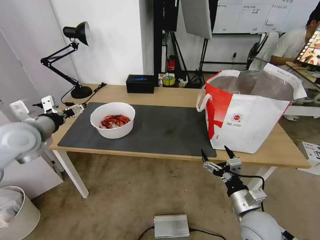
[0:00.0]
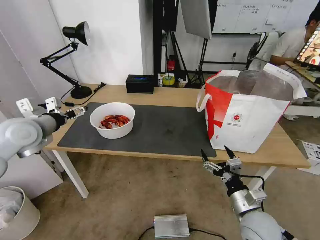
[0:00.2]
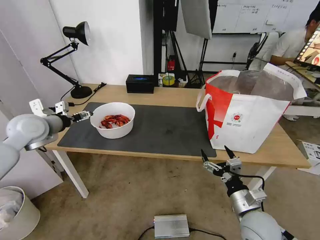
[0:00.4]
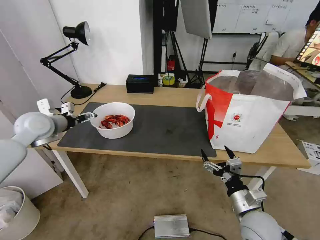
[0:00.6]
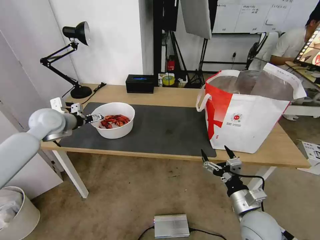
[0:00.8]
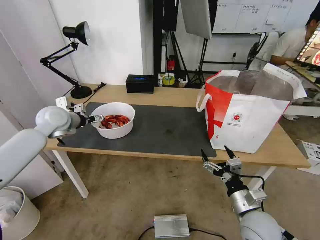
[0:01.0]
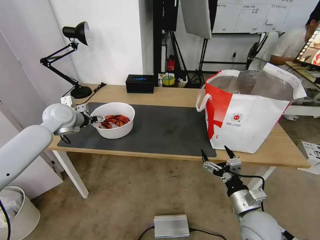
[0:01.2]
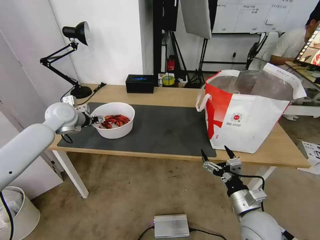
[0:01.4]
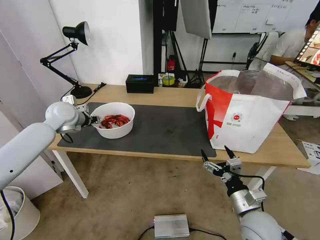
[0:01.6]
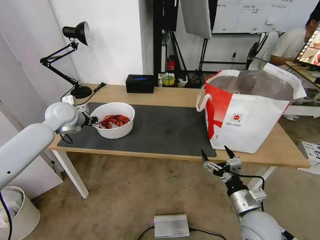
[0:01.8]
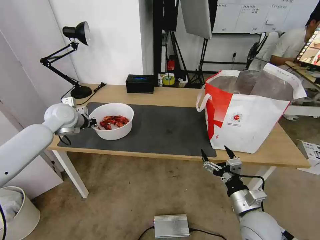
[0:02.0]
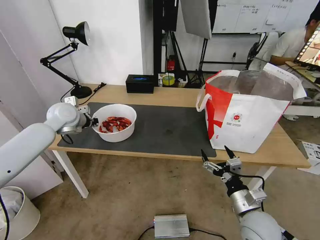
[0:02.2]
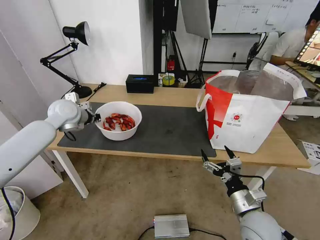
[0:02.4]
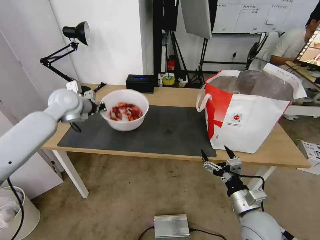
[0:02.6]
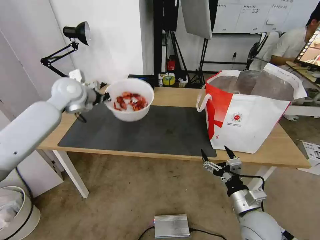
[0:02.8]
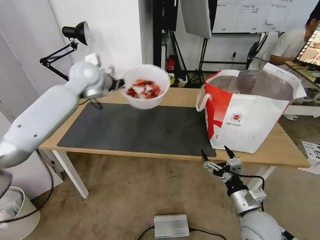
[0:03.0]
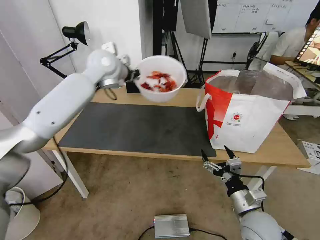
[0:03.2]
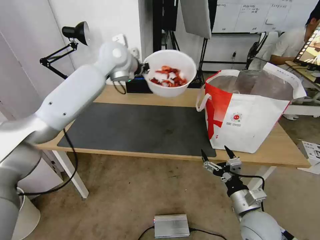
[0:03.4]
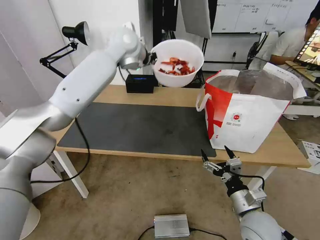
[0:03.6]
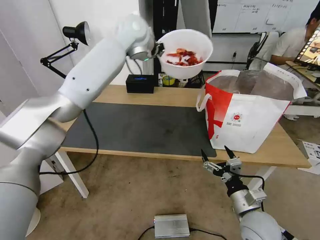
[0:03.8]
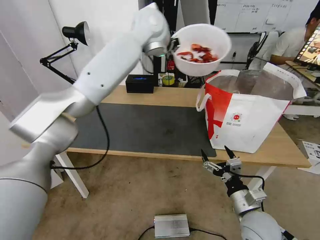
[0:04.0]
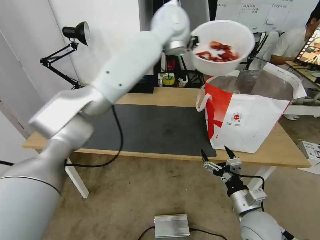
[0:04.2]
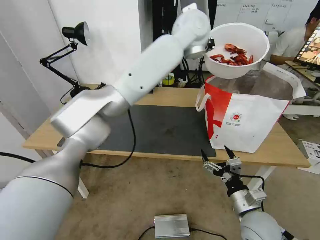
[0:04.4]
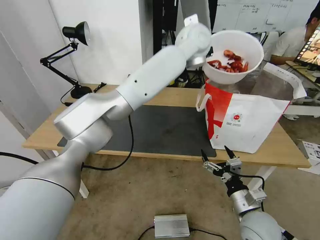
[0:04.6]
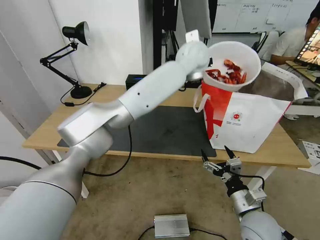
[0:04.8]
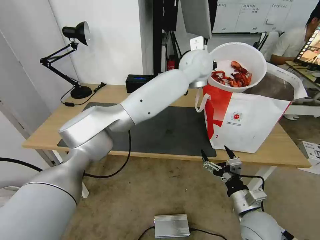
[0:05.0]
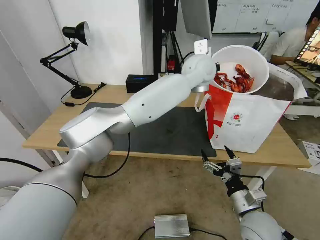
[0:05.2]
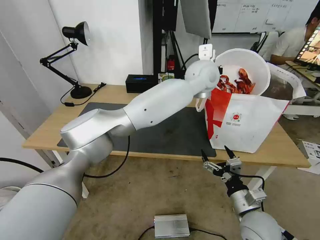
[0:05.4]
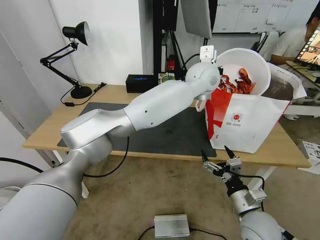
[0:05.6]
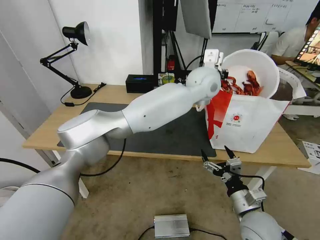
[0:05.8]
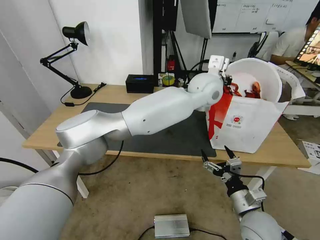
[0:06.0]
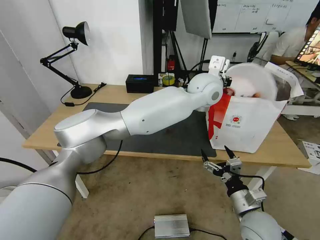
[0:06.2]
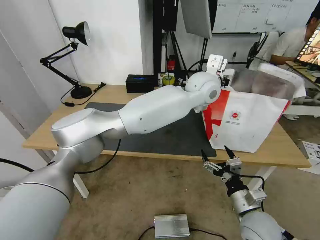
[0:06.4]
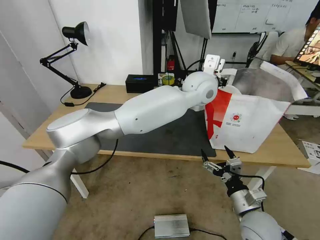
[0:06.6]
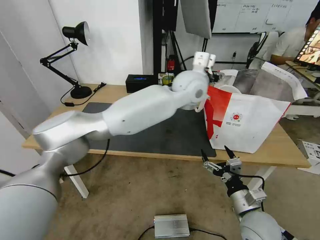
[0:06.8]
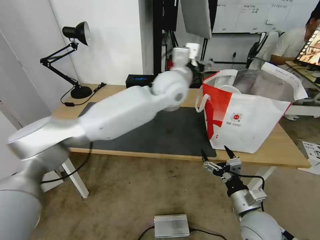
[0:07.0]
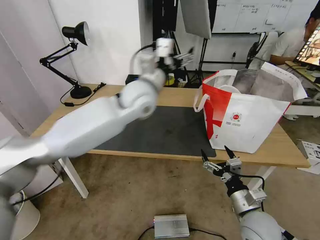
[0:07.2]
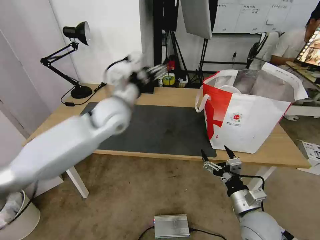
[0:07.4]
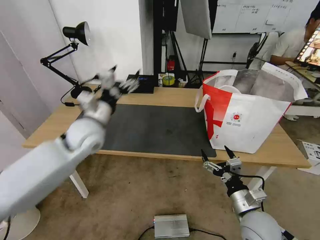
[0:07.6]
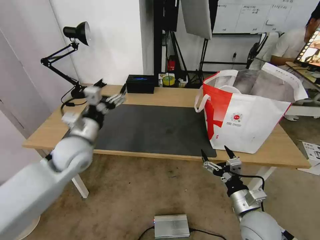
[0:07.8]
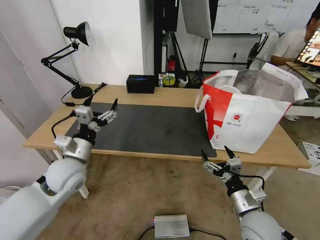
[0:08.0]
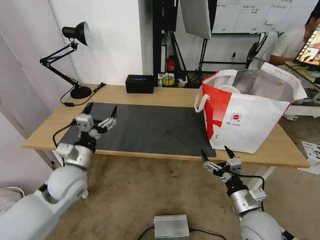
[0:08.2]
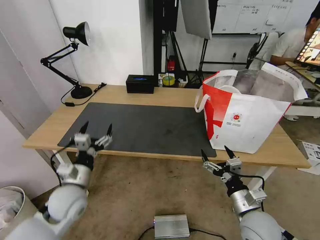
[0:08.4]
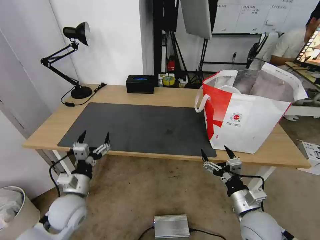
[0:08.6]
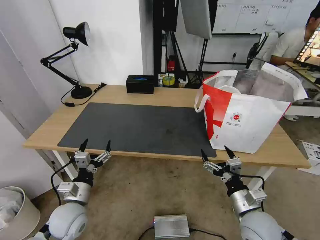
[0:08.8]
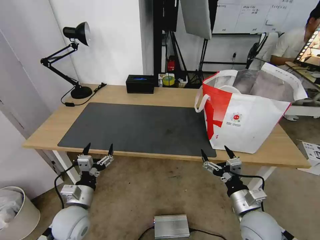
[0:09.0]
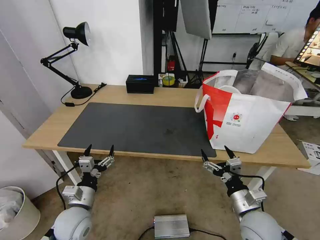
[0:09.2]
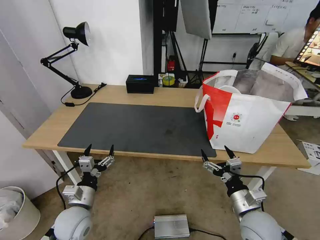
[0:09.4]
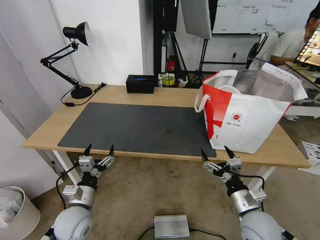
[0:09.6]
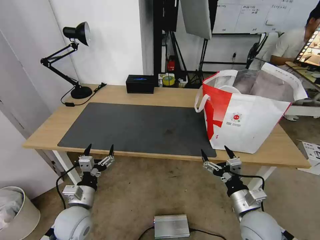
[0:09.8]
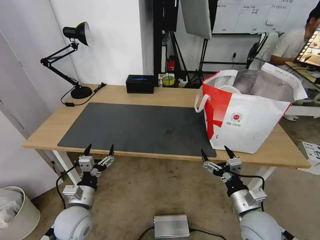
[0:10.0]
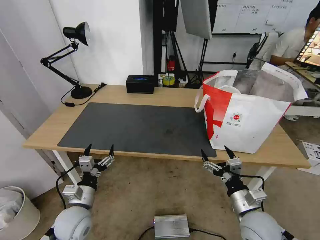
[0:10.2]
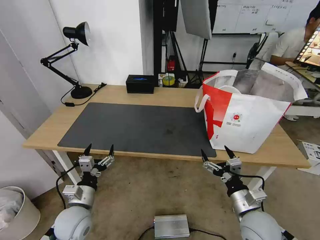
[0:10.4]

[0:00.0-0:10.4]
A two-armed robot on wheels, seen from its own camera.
Task of the whole recording: Pick up the trash from the table and place it into the takeout bag.
0:00.0 to 0:01.4: The left gripper is displaced forward by about 15 cm.
0:01.4 to 0:03.0: The left gripper heads upward and to the right, covering some 15 cm, and closes its fingers.
0:03.0 to 0:04.4: The left gripper goes some 30 cm to the right.
0:04.4 to 0:06.0: The left gripper moves downward, backward and to the right, about 15 cm.
0:06.0 to 0:07.4: The left gripper moves to the left, some 25 cm, and opens up.
0:07.4 to 0:09.0: The left gripper moves downward, backward and to the left, approximately 35 cm.
0:09.0 to 0:10.4: Both grippers stay about where they are.

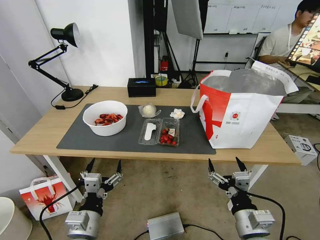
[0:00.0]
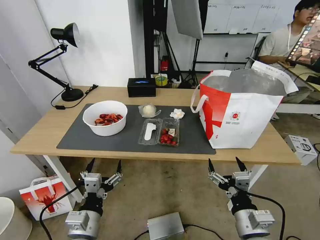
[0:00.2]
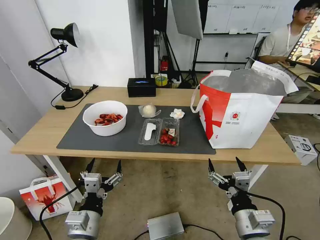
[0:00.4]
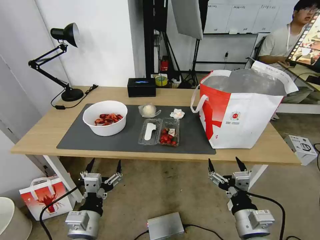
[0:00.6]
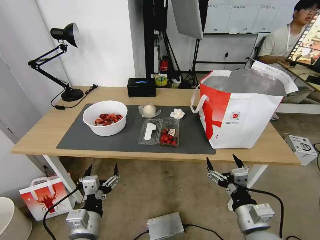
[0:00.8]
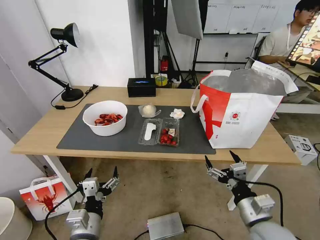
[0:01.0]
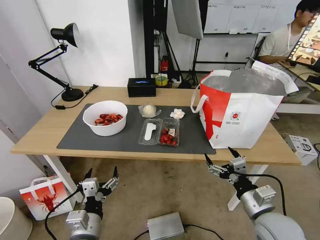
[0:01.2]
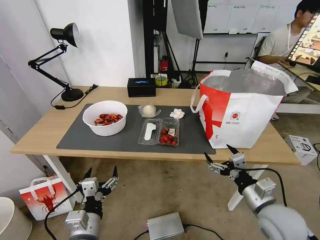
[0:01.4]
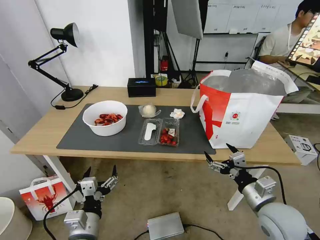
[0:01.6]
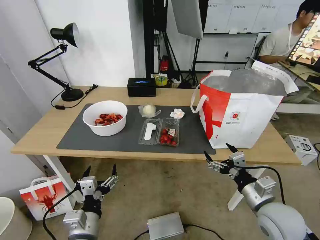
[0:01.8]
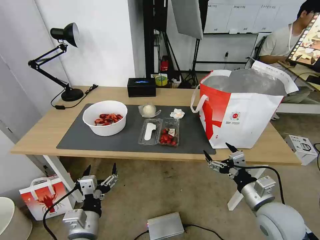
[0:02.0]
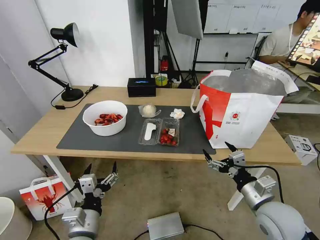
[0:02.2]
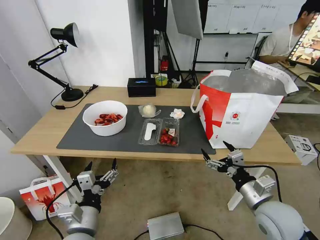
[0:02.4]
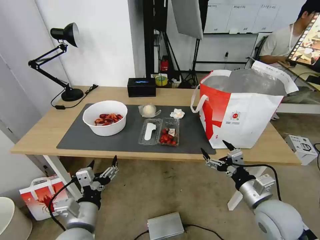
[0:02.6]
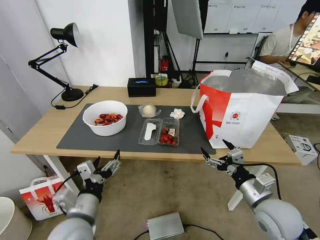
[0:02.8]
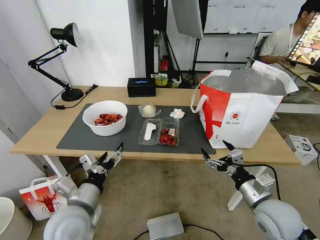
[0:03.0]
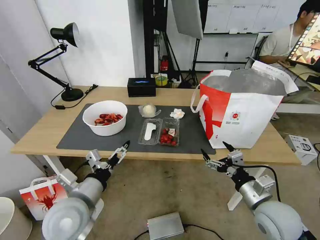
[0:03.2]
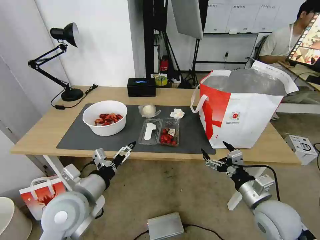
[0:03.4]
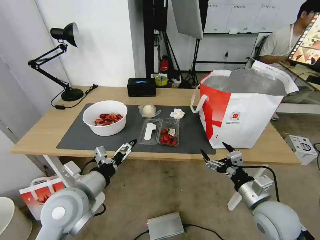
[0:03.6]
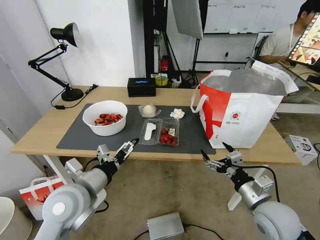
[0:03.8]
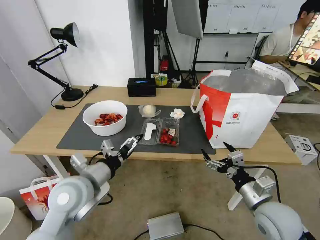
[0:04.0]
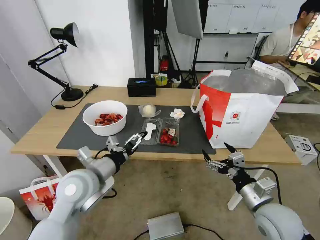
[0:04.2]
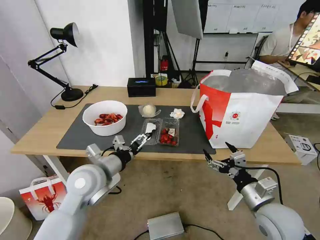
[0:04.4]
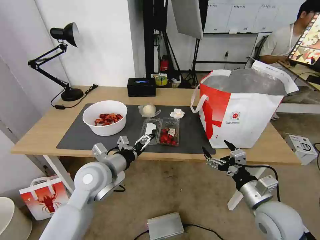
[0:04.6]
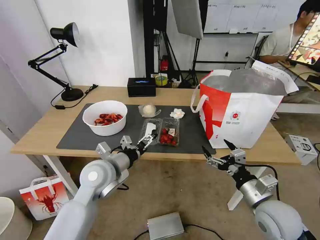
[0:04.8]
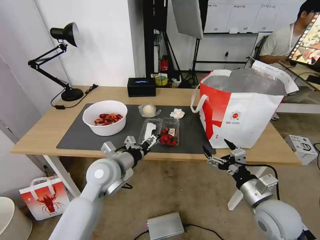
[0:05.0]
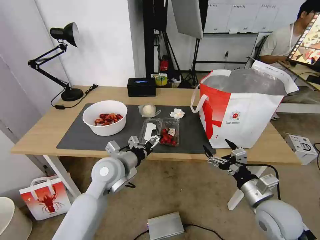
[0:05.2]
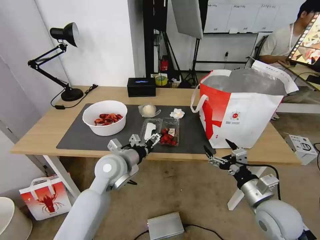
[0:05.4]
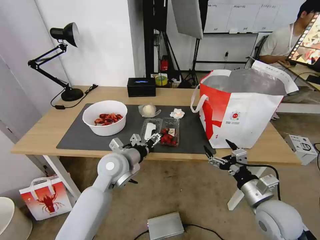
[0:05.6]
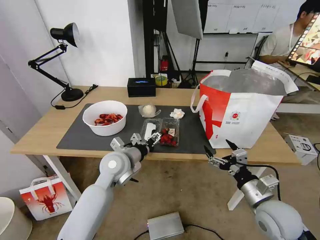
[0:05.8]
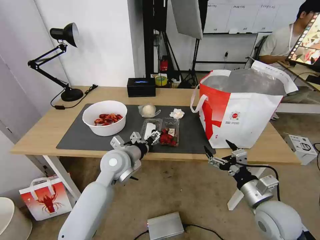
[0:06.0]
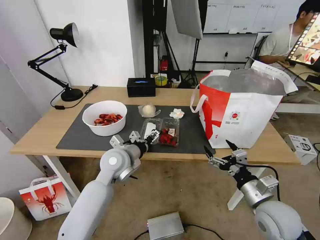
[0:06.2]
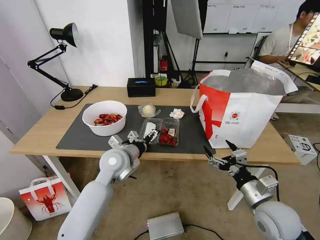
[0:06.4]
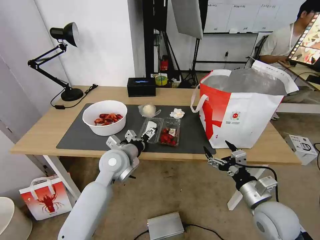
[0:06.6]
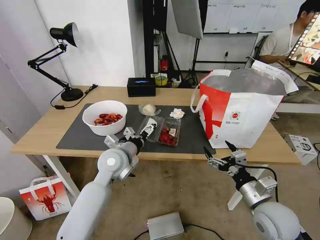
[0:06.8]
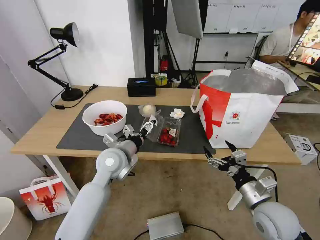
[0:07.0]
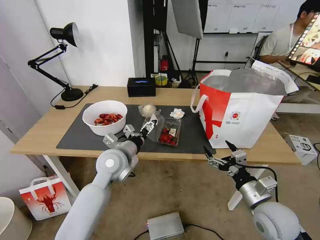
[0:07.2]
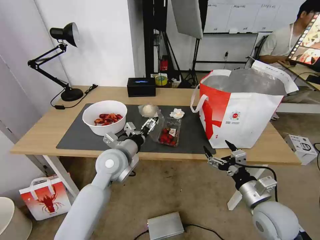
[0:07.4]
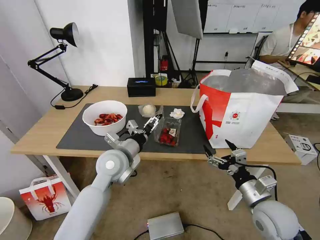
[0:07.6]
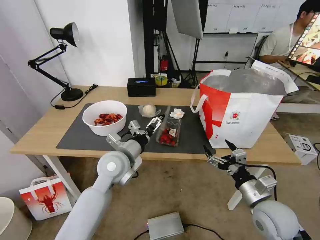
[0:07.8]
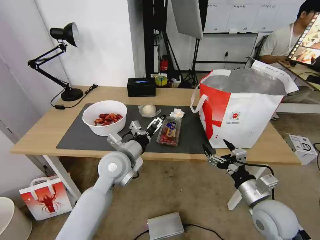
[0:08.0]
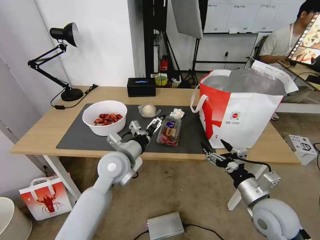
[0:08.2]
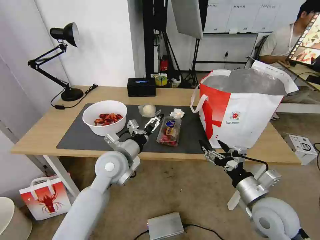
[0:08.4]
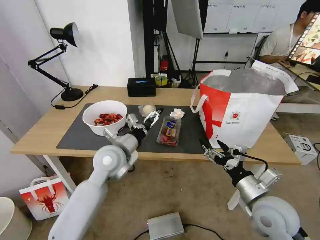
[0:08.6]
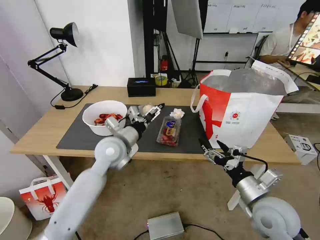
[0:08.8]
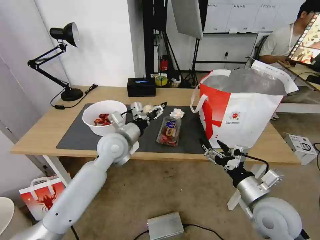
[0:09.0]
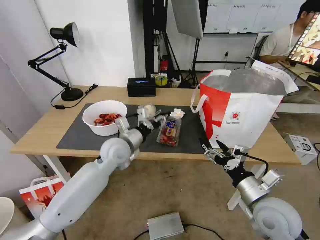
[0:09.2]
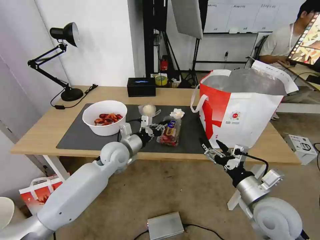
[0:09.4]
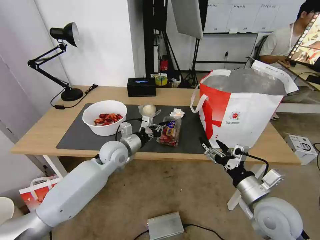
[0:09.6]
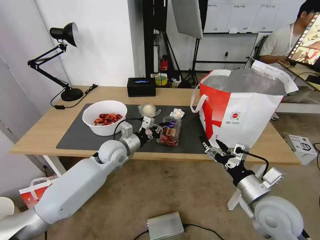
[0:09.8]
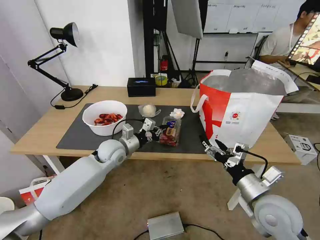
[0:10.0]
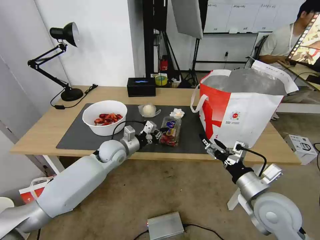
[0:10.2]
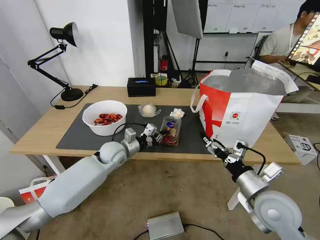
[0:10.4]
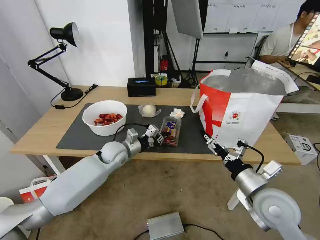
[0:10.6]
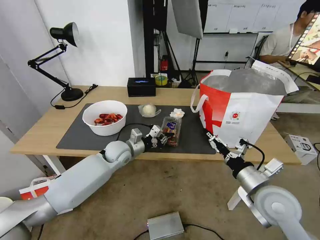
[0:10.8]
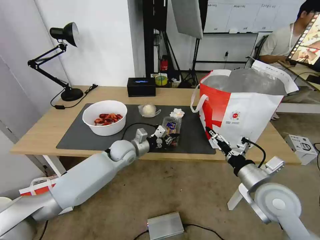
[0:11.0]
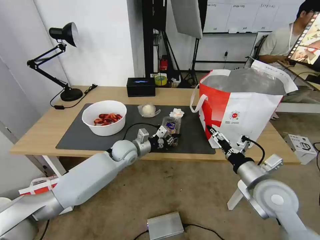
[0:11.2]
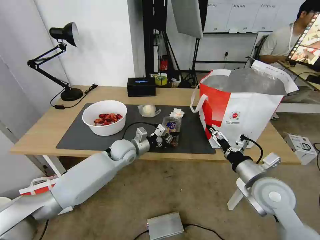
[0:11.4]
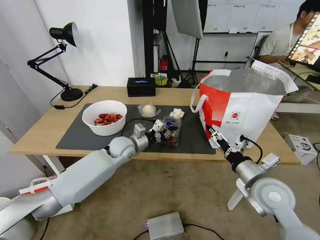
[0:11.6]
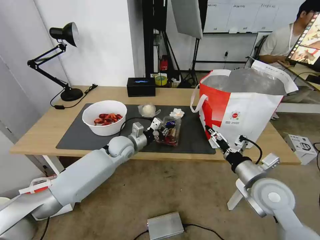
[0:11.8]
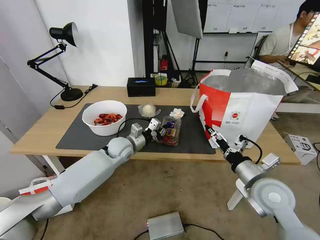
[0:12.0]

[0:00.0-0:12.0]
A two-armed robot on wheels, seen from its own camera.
Task of the whole recording: Pick up the trash from the table and place it into the takeout bag.
0:01.6 to 0:03.0: The left gripper travels upward and forward by about 10 cm.
0:03.0 to 0:04.4: The left gripper goes some 10 cm forward.
0:04.4 to 0:06.0: The left gripper is displaced forward and to the right by approximately 10 cm.
0:06.0 to 0:07.6: There are only small adjustments of the grippers.
0:07.6 to 0:09.0: The left gripper moves roughly 5 cm, and closes up.
0:09.0 to 0:10.4: The left gripper is displaced downward by roughly 10 cm, and closes up.
0:10.4 to 0:12.0: The grippers move only a little.
